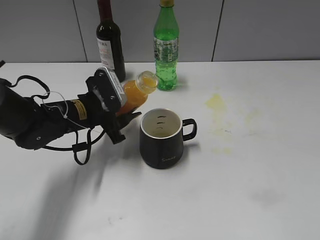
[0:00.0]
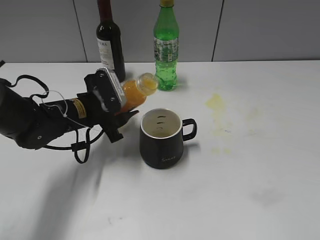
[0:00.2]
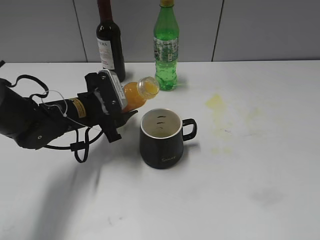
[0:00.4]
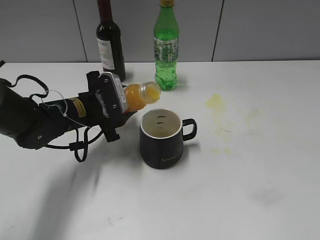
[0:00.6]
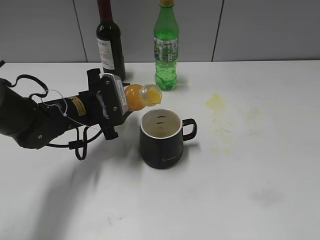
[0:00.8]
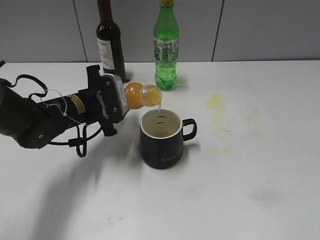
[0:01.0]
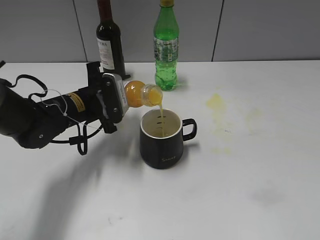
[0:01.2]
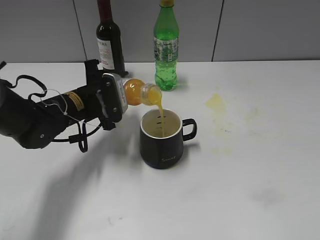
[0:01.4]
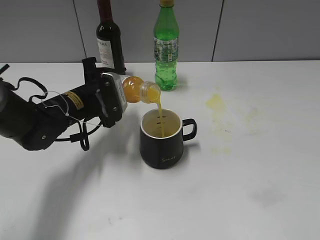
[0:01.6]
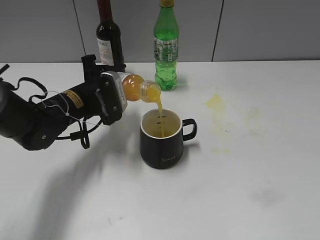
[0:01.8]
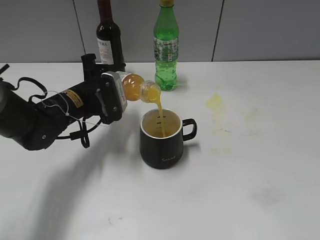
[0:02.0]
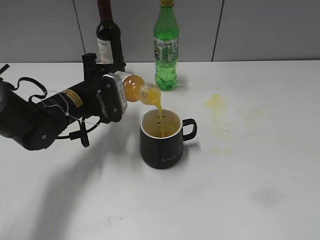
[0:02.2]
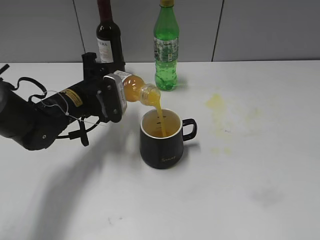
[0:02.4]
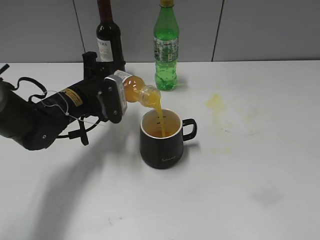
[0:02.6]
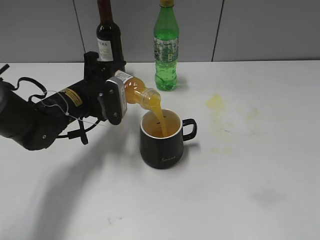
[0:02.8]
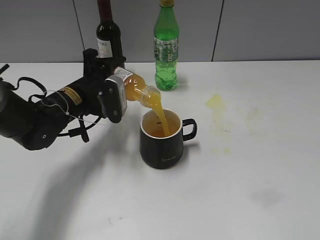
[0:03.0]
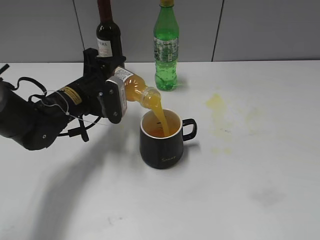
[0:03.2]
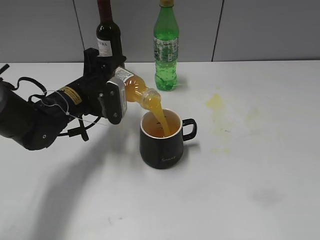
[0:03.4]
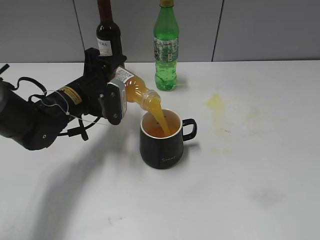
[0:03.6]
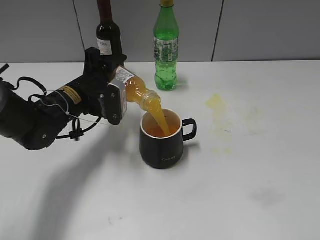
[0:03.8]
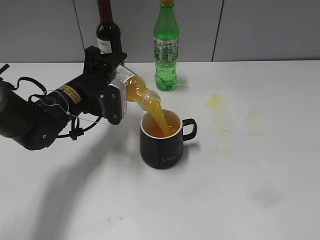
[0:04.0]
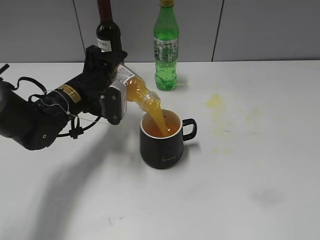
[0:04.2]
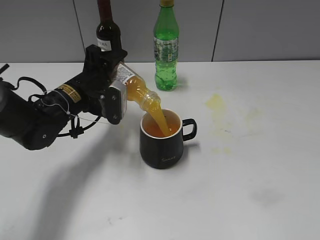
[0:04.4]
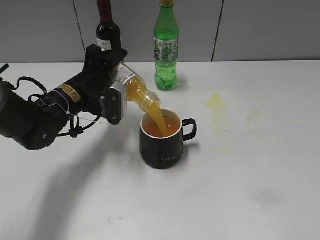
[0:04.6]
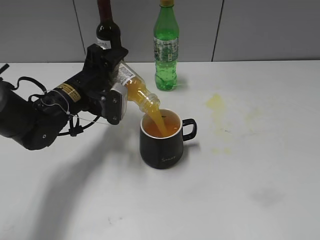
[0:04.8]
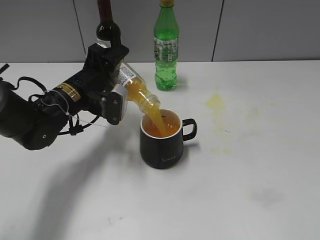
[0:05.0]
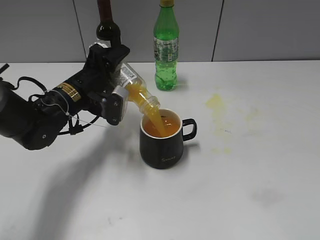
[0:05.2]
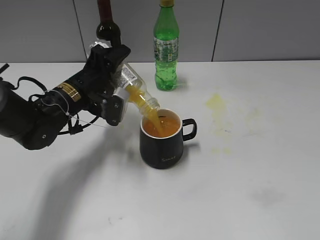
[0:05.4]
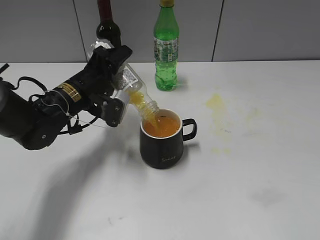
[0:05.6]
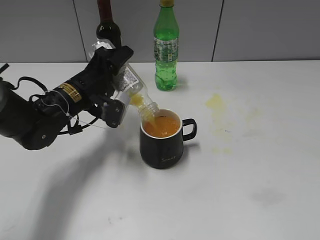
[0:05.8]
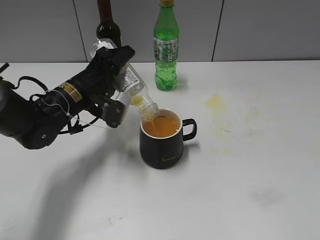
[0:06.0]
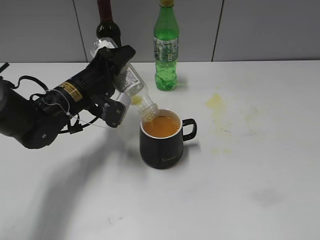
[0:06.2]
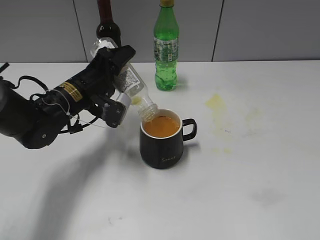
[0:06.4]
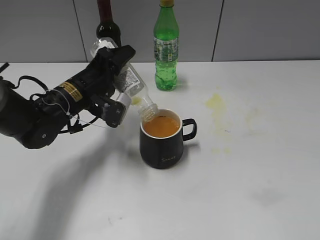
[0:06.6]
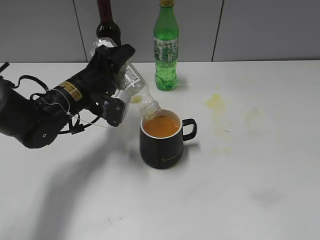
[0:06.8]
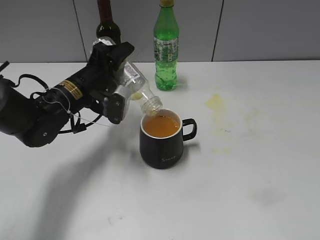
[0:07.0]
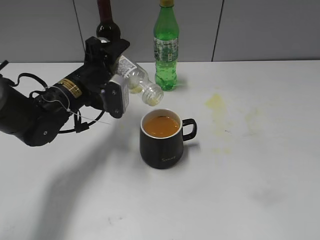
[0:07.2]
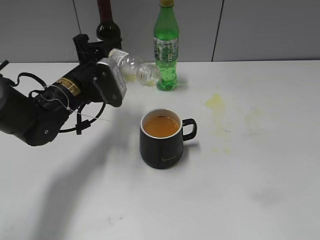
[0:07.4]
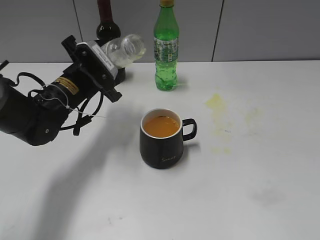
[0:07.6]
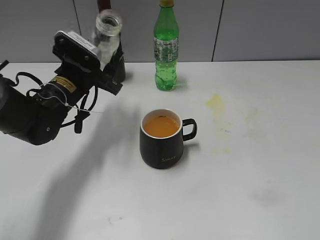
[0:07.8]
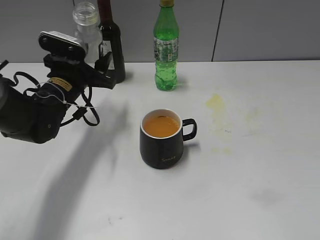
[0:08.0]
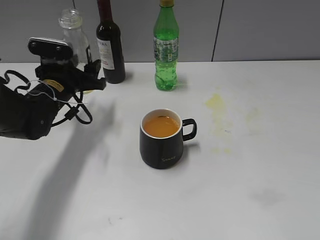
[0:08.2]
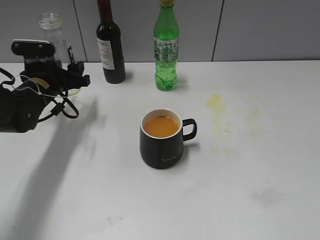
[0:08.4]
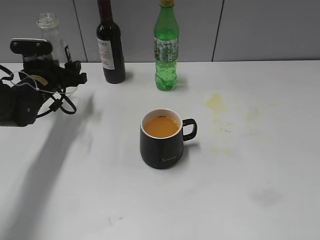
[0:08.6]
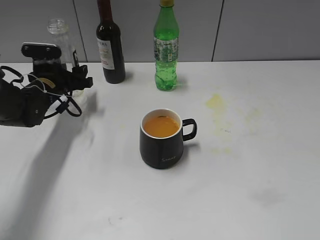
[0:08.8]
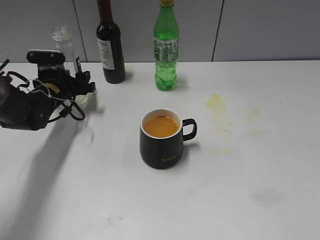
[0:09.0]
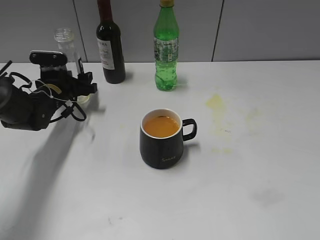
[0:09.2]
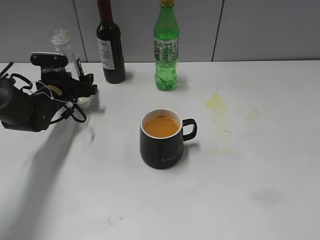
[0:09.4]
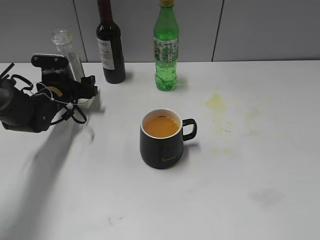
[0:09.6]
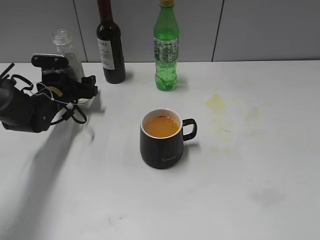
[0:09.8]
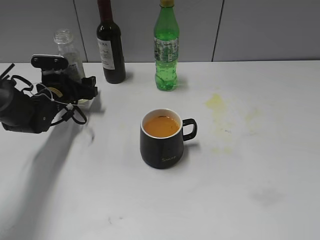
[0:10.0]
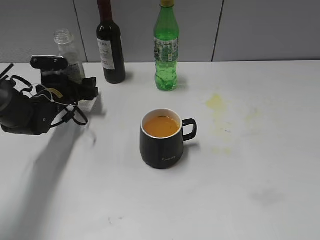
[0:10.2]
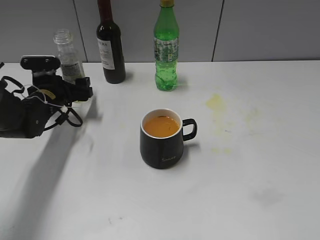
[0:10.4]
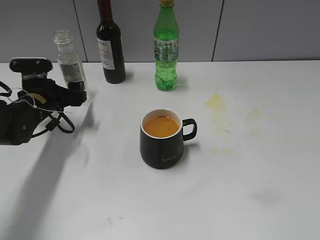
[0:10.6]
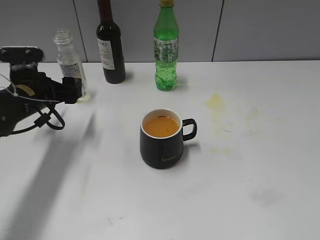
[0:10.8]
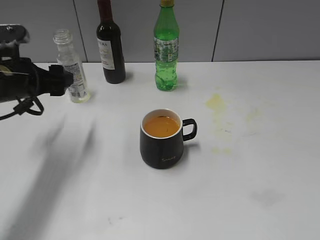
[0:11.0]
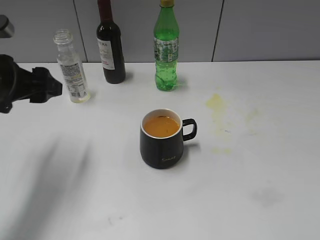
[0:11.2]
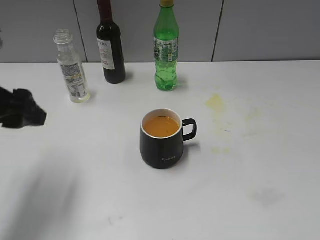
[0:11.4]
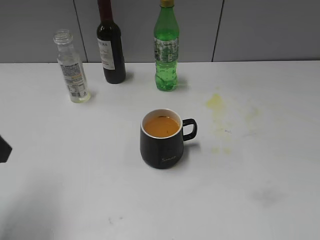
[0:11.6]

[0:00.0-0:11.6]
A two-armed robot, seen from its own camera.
Step, 0:00.0 to 0:07.2: Pour the orange juice from bottle to cup with left gripper.
Step, 0:07.6 to 0:10.2: Place the orange juice bottle on the table with left gripper.
0:01.4 to 0:02.8: There are only small adjustments of the grippers.
0:02.8 to 0:04.4: The grippers stay close to where they were, moving slightly.
0:04.4 to 0:07.2: The grippers stay close to where they were, moving slightly.
0:07.2 to 0:08.8: The left gripper goes some 10 cm to the left and forward.
0:08.8 to 0:10.2: The left gripper opens up.
0:10.2 to 0:11.6: The left gripper travels backward and upward by approximately 30 cm.

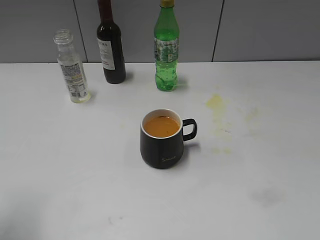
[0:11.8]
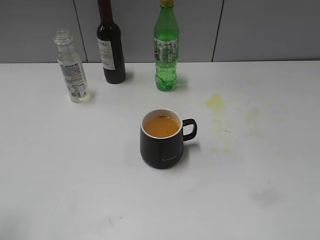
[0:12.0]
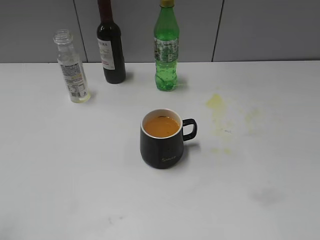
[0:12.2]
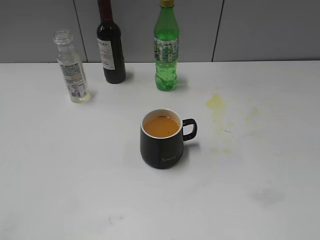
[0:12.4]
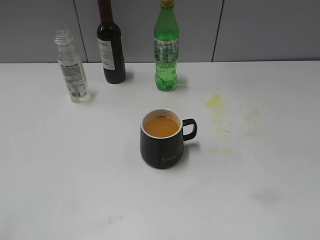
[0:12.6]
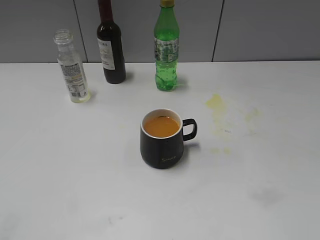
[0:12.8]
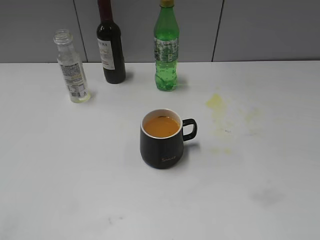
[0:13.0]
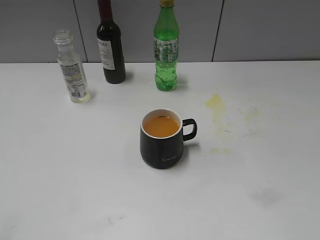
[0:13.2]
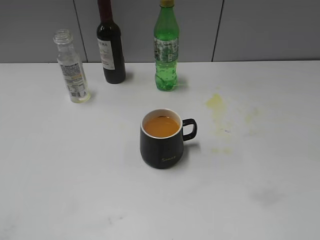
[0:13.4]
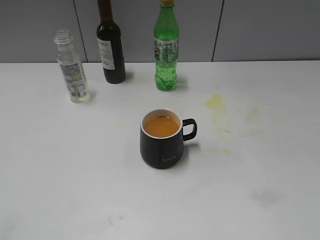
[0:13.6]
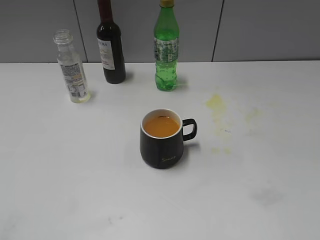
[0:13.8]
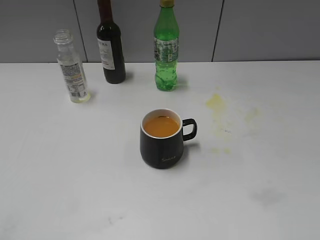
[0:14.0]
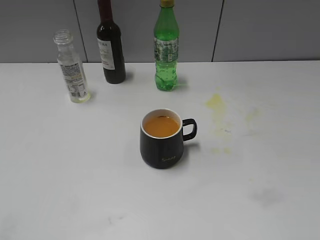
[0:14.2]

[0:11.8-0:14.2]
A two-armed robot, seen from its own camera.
0:11.8 to 0:13.0: The left gripper shifts approximately 10 cm backward.
